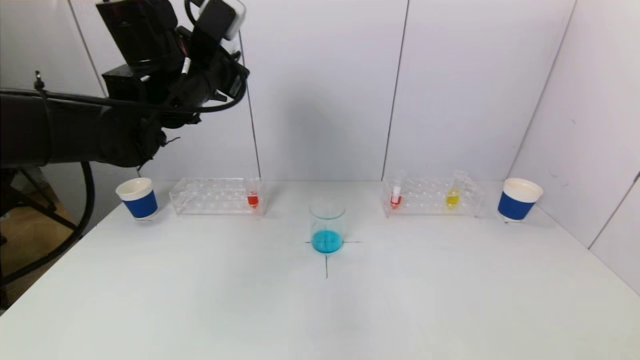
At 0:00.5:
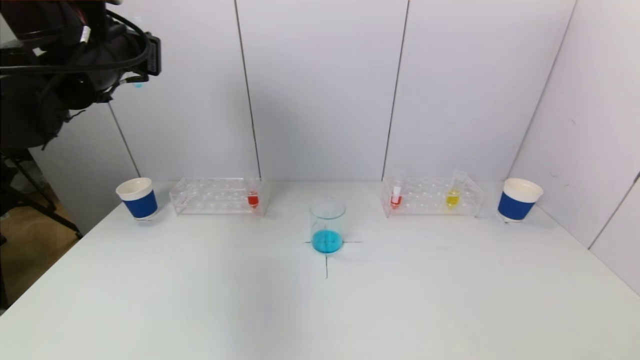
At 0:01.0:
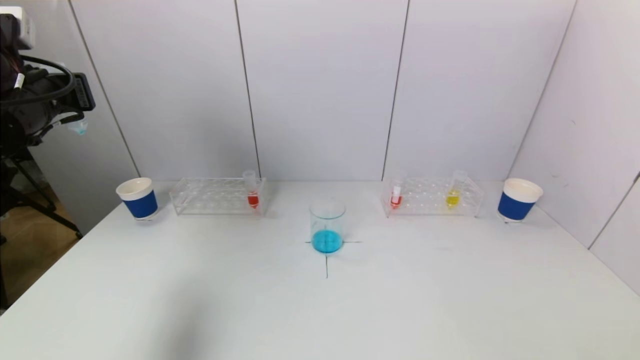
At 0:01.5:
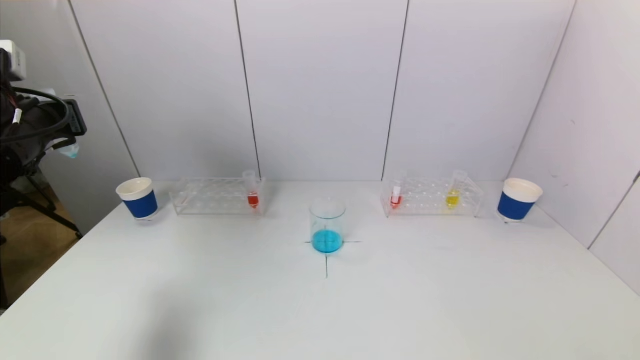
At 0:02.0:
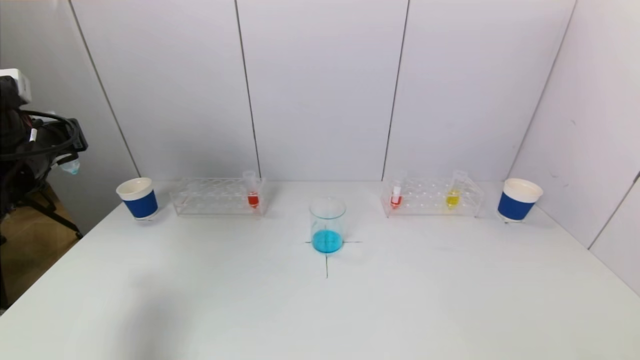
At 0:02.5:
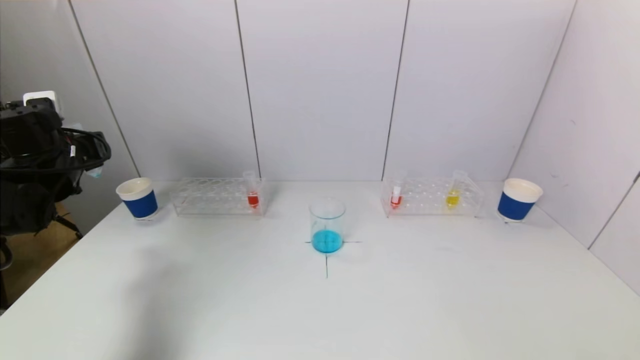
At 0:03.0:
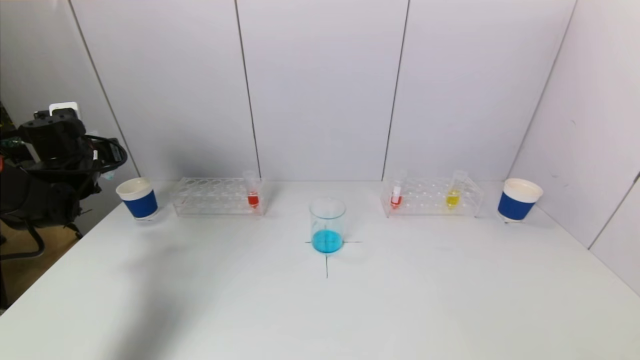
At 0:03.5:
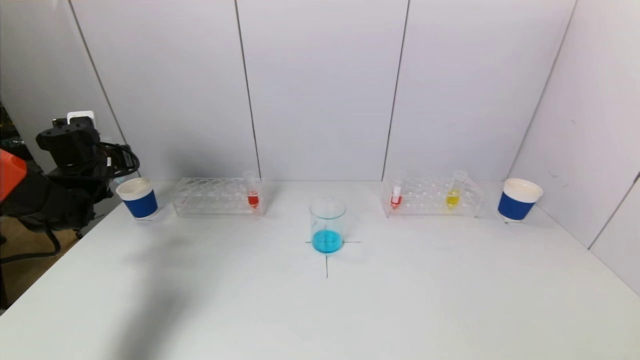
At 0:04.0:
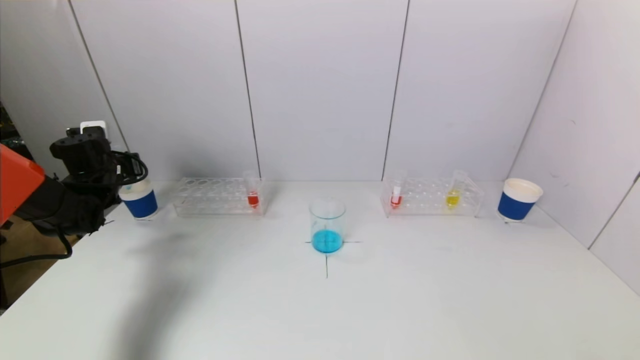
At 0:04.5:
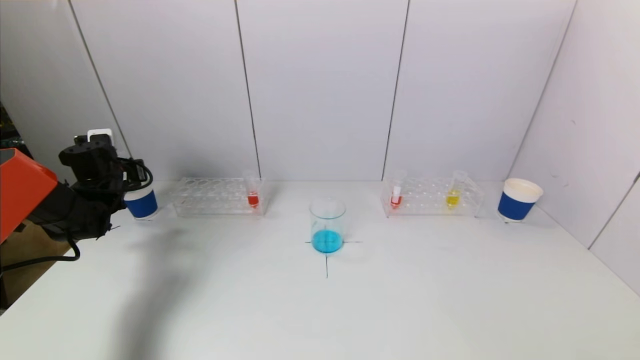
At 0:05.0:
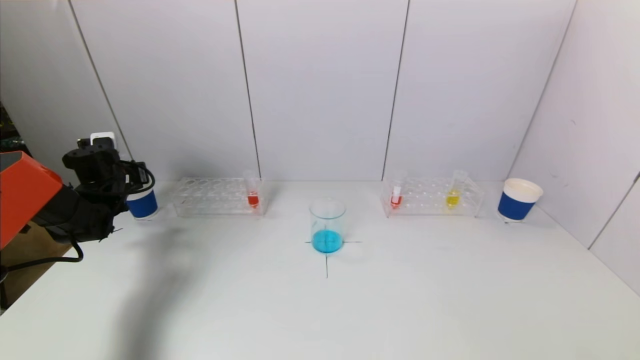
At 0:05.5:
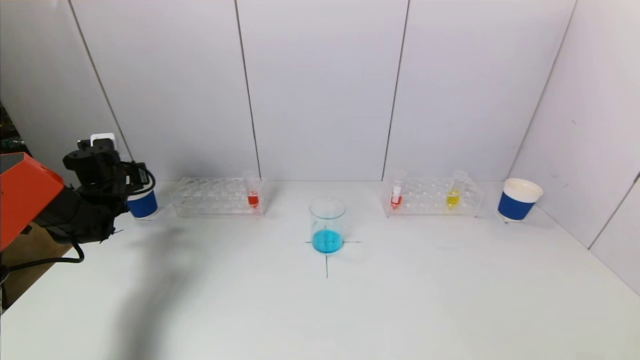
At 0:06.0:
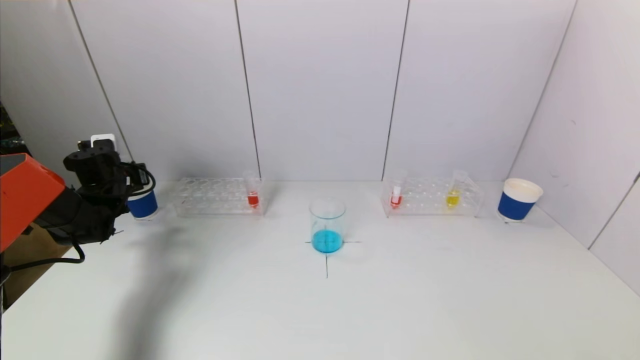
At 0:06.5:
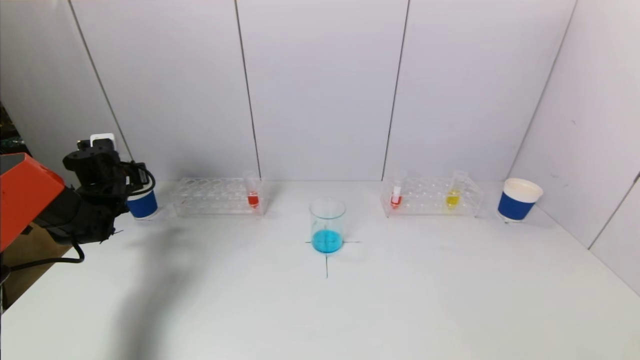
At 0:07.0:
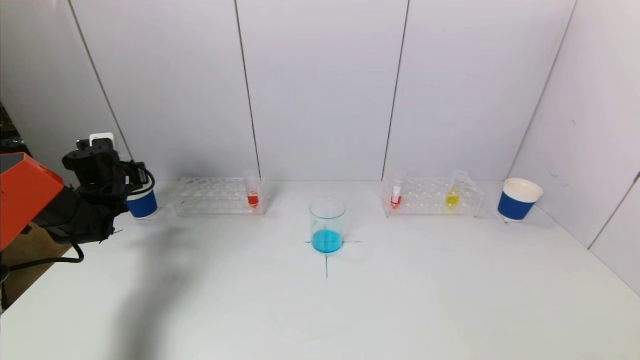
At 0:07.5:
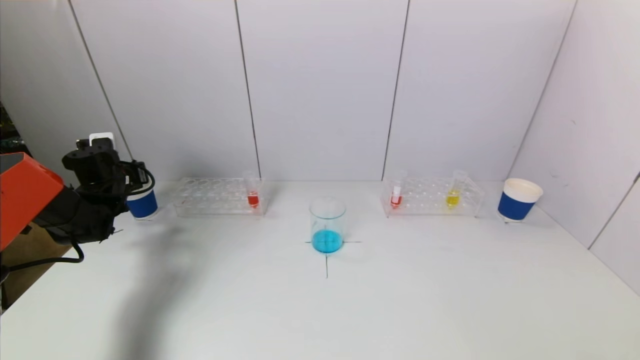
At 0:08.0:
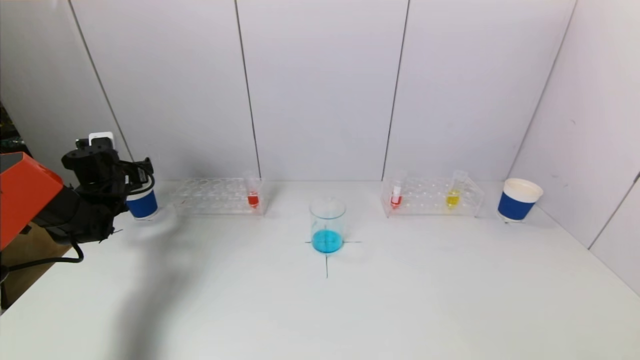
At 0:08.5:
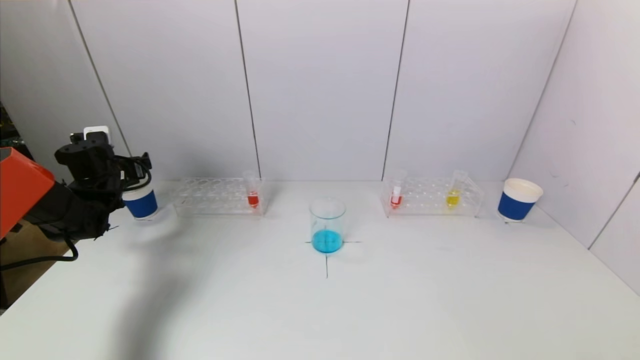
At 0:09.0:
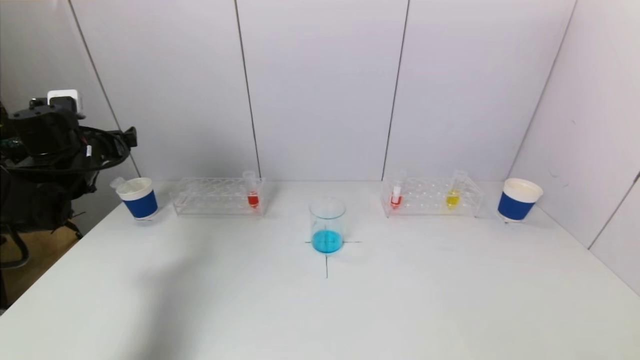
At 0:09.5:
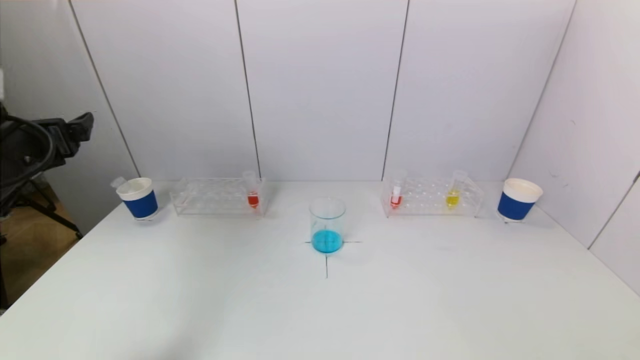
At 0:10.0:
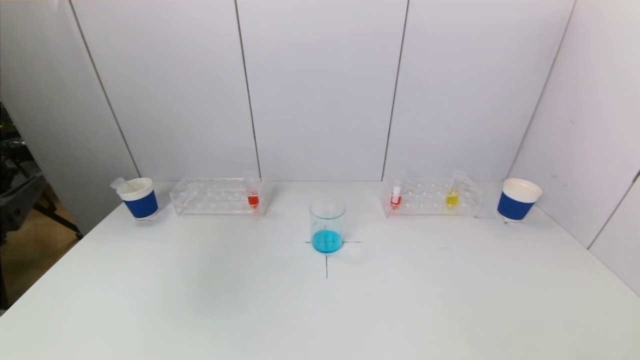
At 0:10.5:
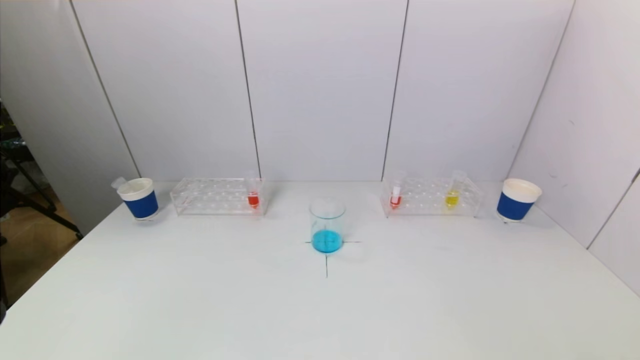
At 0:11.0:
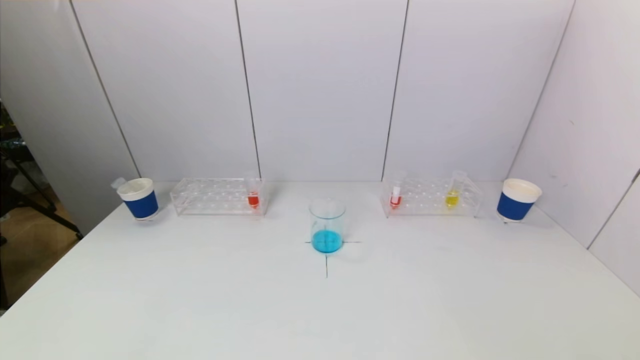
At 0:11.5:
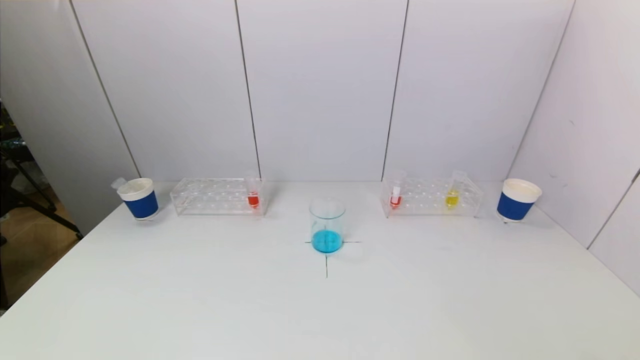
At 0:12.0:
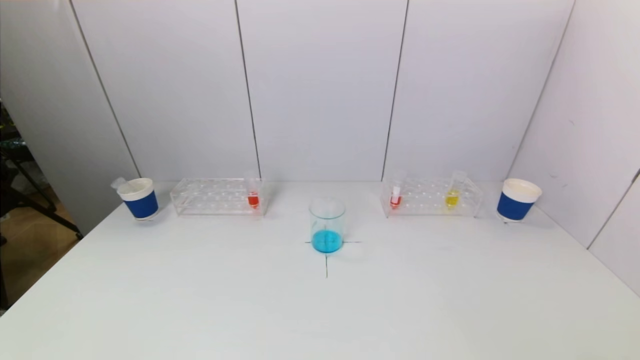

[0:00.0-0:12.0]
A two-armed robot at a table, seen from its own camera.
Task of the whole recording: pick up a test tube with pigment on left test tube rack and a test tube with pigment on right test tube rack by grippers and pour them into the beaker.
Step, 0:00.0 to 0:07.5: Place the test tube into the paper cup with the left gripper.
0:00.0 to 0:02.0: The left gripper goes about 20 cm to the left.
0:02.0 to 0:04.0: The left gripper goes about 15 cm forward and downward.
0:04.0 to 0:06.0: The grippers stay close to where they were, moving slightly.
0:06.0 to 0:08.0: The left gripper opens its fingers.
0:08.0 to 0:10.0: The left gripper is displaced backward by some 35 cm.
0:10.0 to 0:12.0: The left gripper goes approximately 20 cm downward and backward.

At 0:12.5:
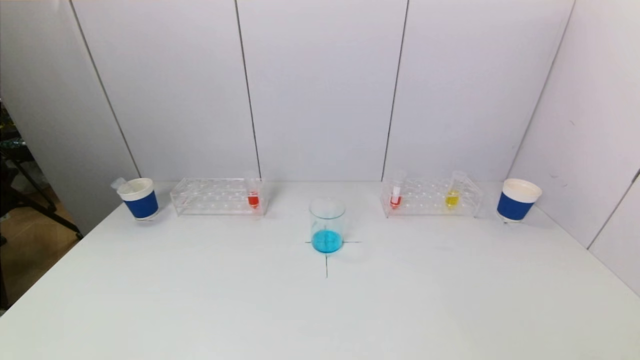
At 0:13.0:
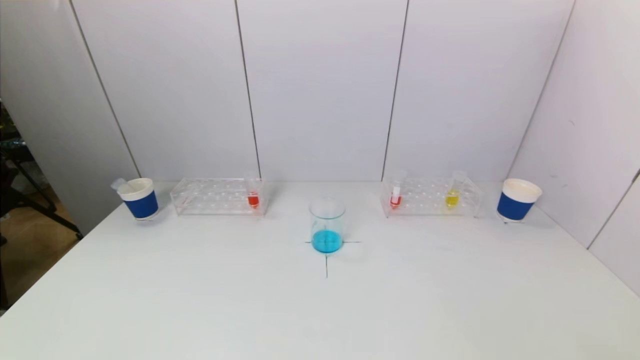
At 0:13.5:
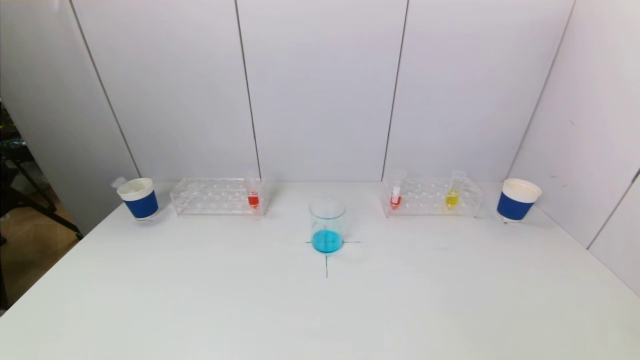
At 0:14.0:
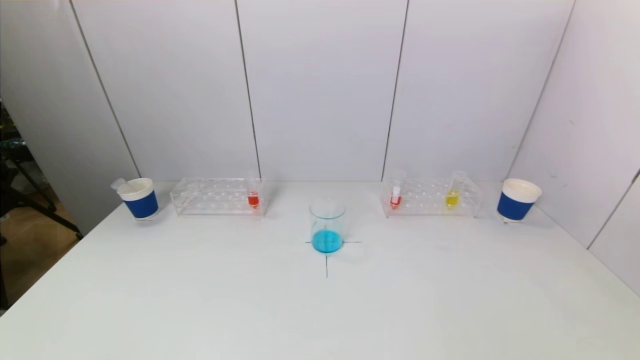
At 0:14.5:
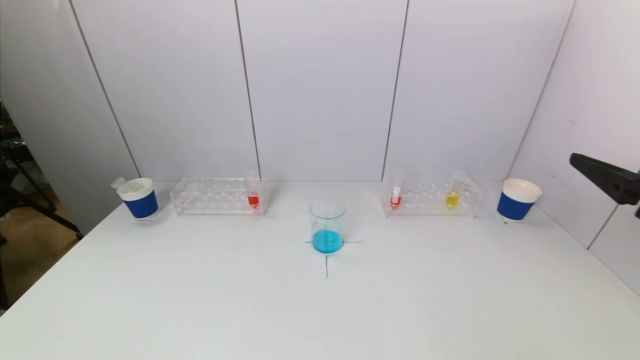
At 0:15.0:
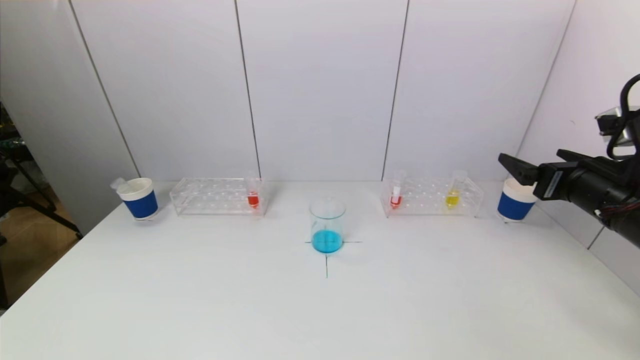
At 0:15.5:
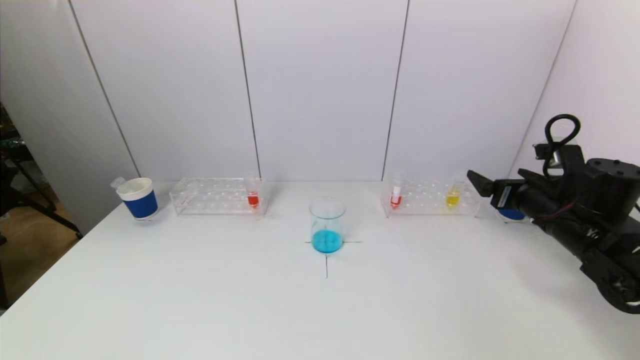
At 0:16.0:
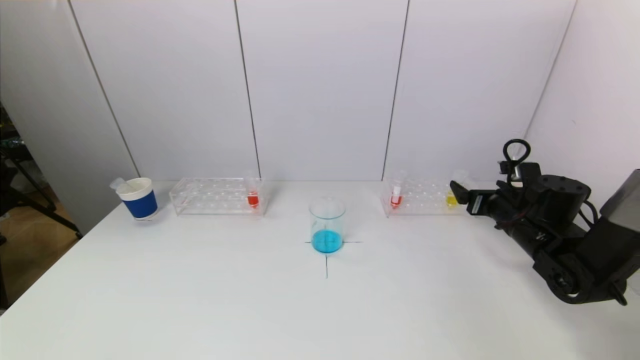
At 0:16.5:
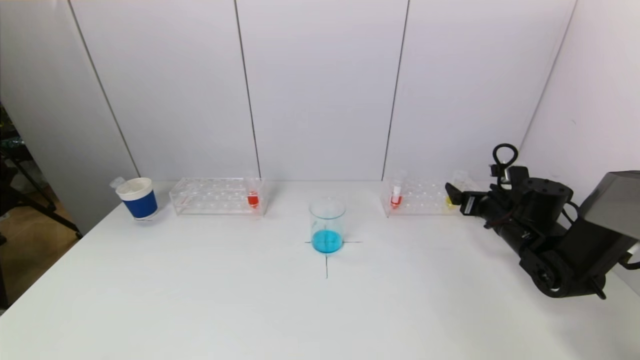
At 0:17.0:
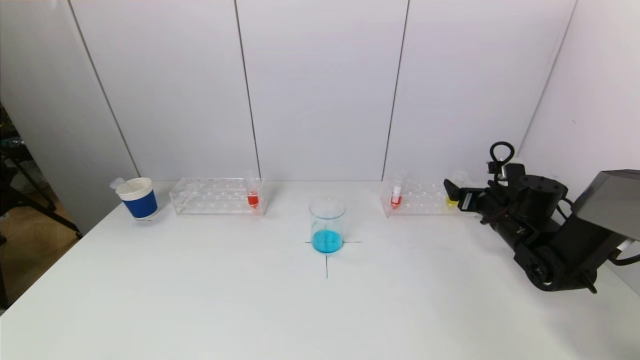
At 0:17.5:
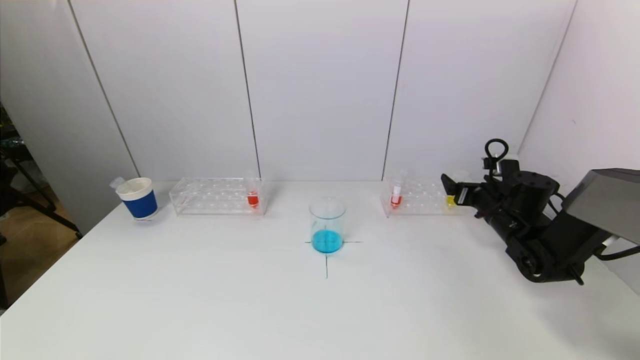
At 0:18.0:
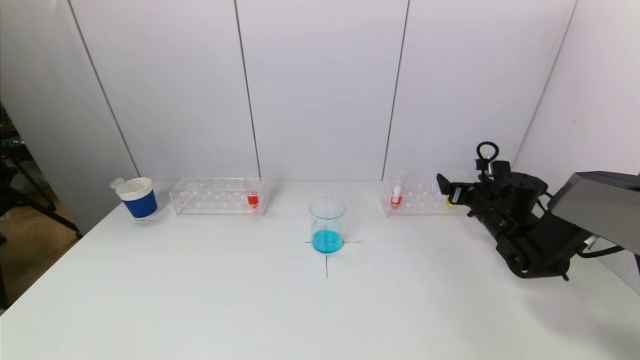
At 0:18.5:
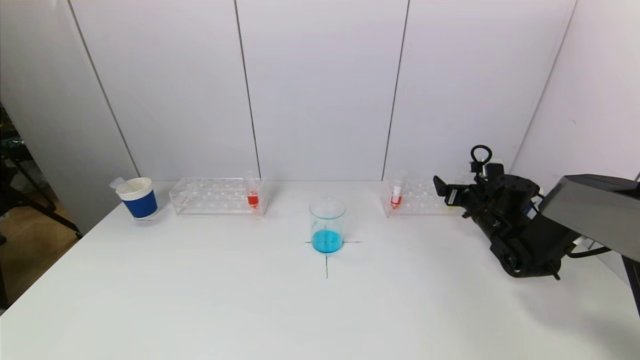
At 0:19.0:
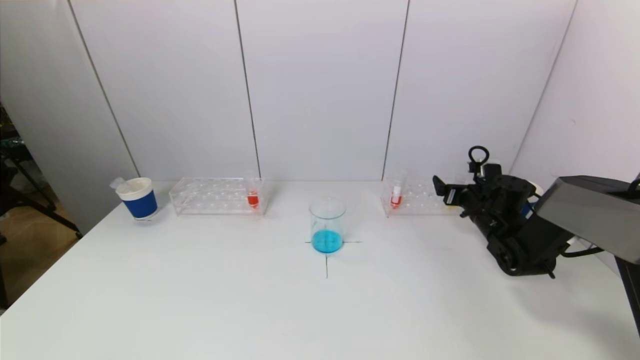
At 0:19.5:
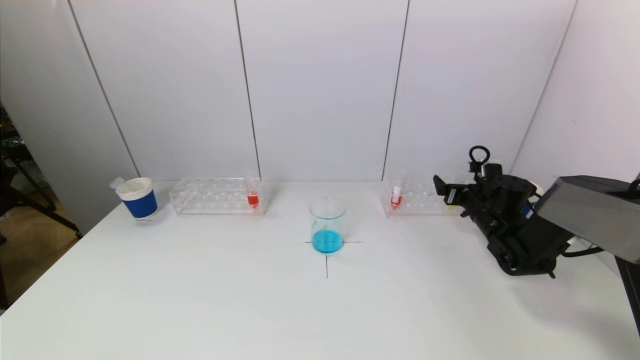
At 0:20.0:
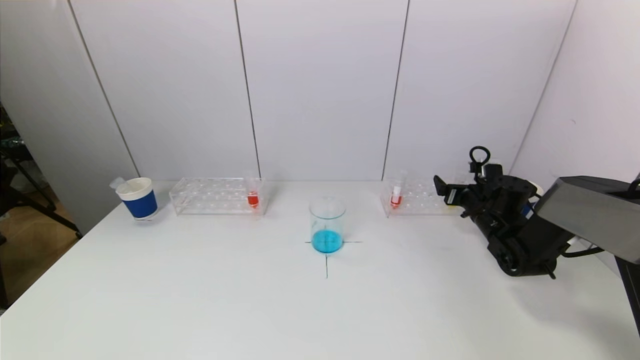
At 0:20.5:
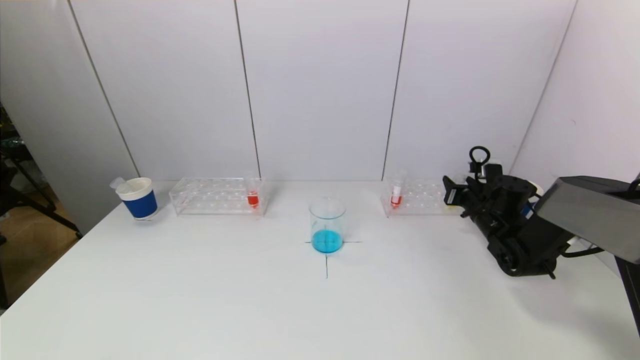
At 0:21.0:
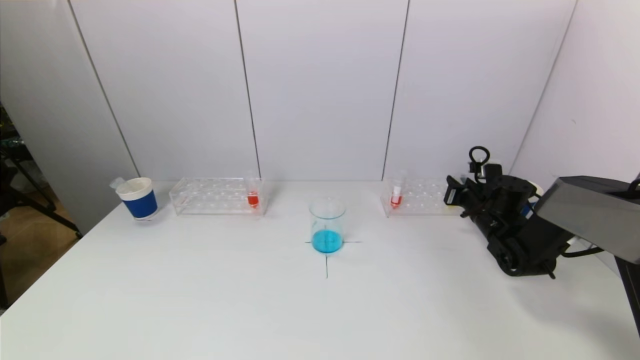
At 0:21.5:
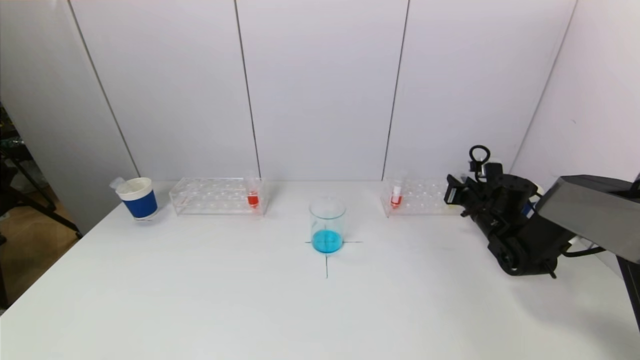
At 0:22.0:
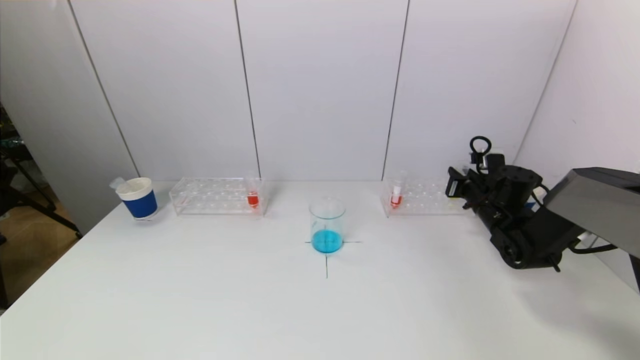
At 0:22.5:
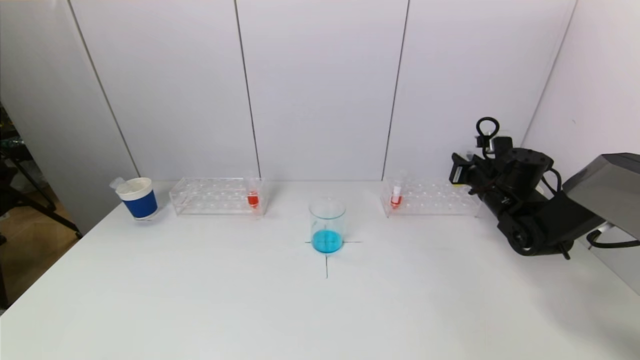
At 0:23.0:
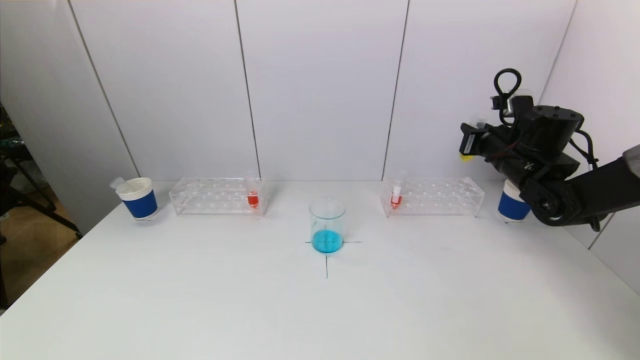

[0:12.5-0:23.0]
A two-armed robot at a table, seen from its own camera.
Task of the whole recording: pick up a test tube with pigment on left test tube rack and a test tube with pigment on right test tube rack by grippers and pour them into the beaker.
Step, 0:12.5 to 0:20.5: Grasp the yellow reagent with the right gripper.
0:12.5 to 0:14.5: The right gripper goes some 25 cm forward and upward.
0:14.5 to 0:16.5: The right gripper is displaced forward and downward by roughly 30 cm.
0:16.5 to 0:19.0: The right gripper moves forward, about 5 cm.
0:21.0 to 0:23.0: The right gripper shifts some 15 cm upward.
